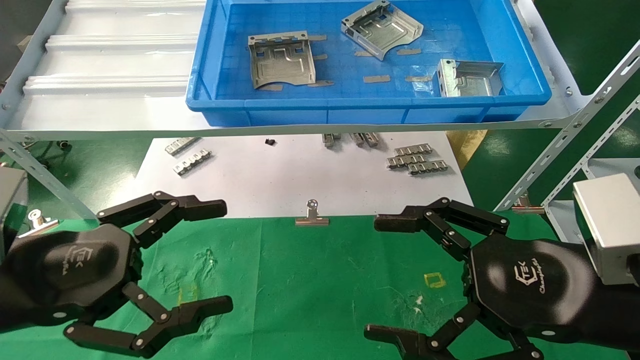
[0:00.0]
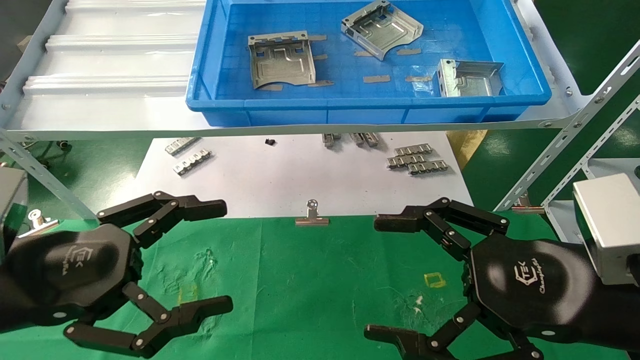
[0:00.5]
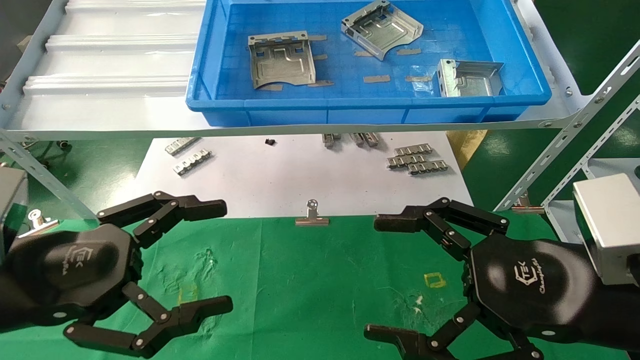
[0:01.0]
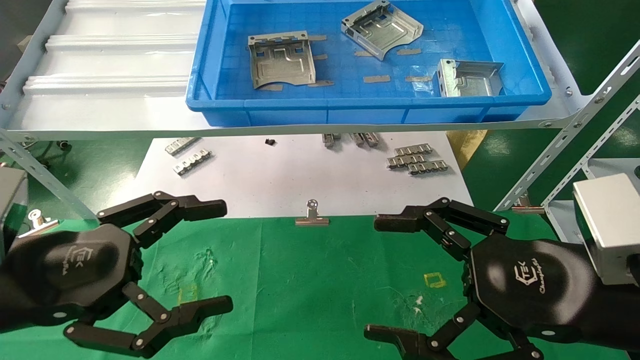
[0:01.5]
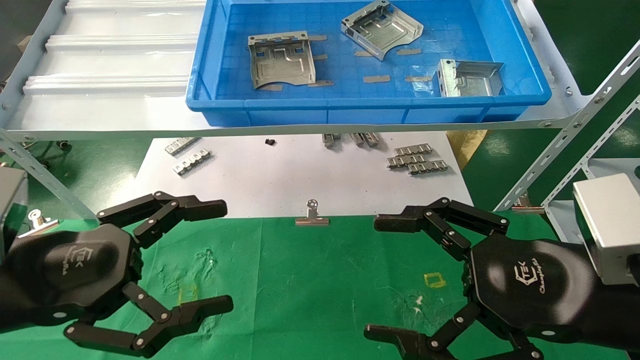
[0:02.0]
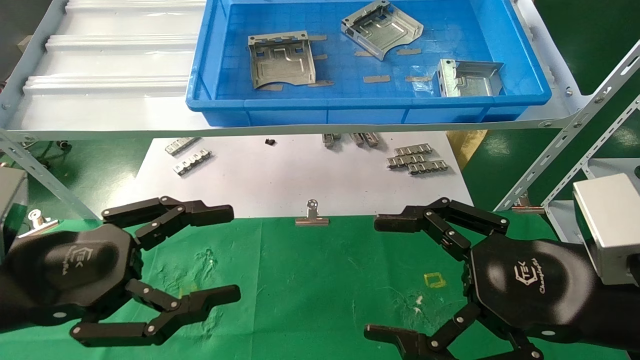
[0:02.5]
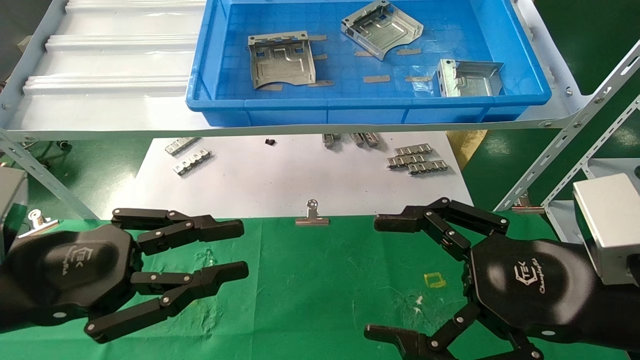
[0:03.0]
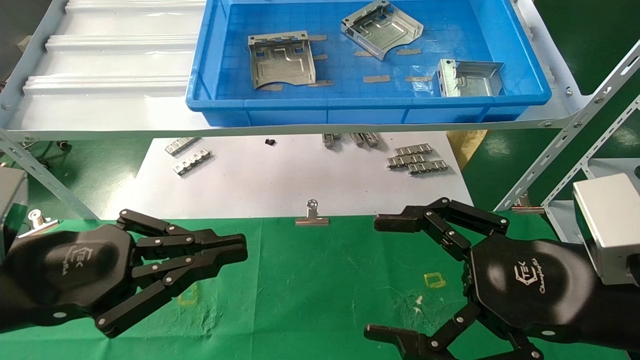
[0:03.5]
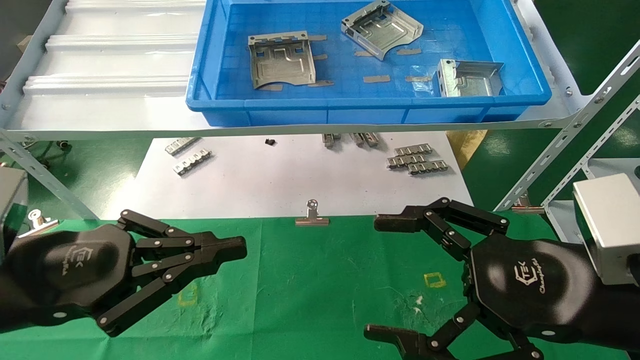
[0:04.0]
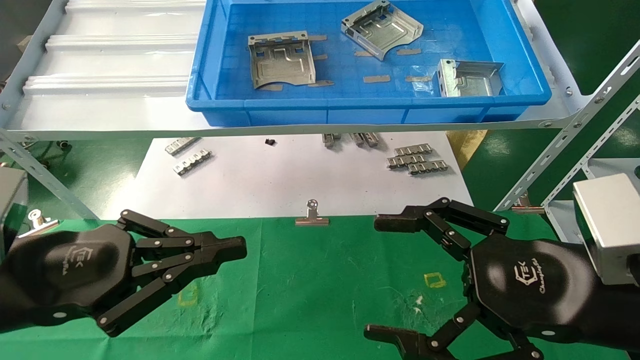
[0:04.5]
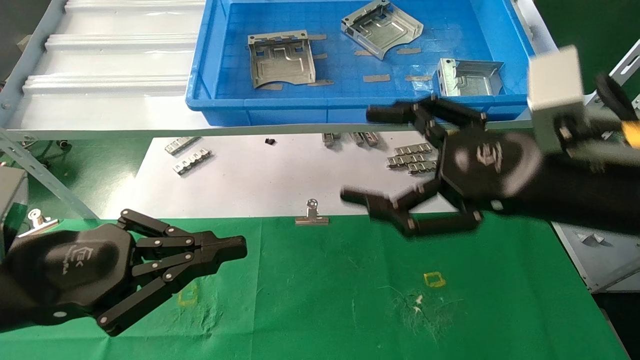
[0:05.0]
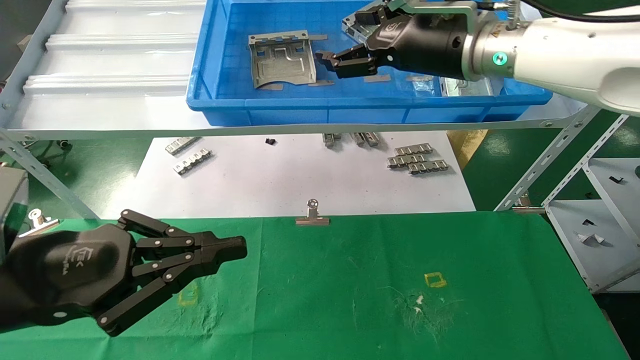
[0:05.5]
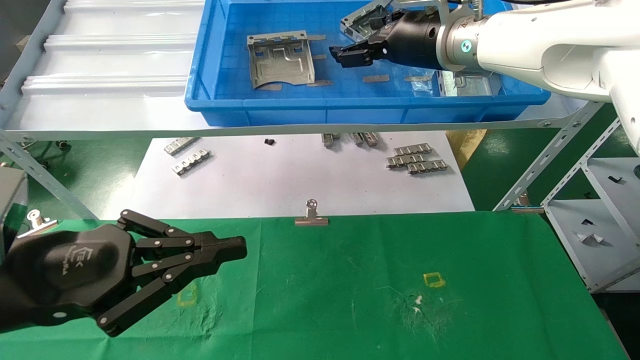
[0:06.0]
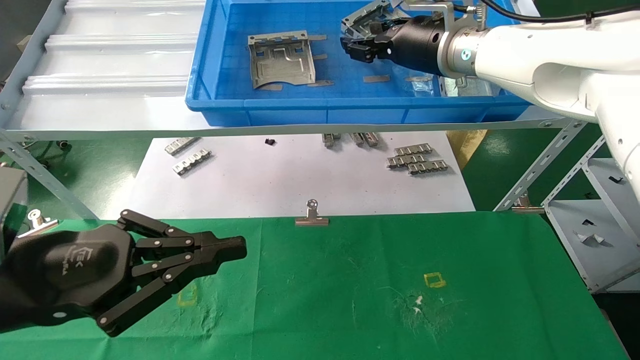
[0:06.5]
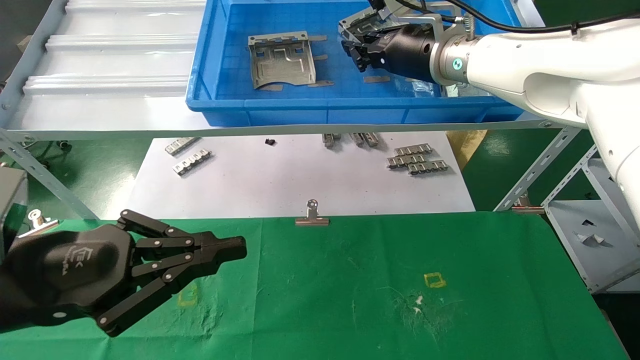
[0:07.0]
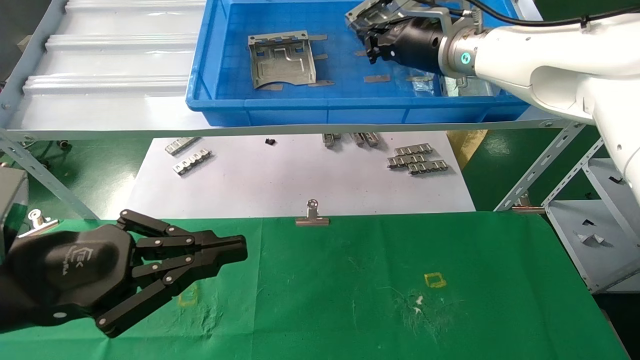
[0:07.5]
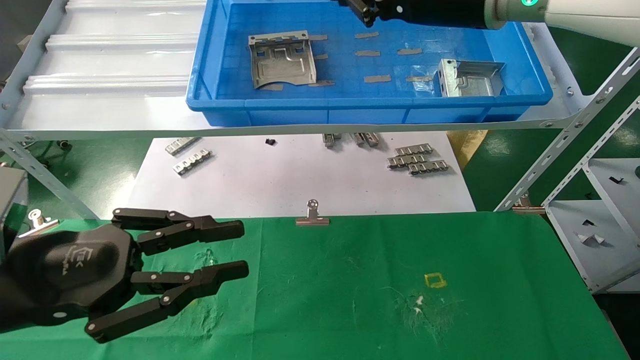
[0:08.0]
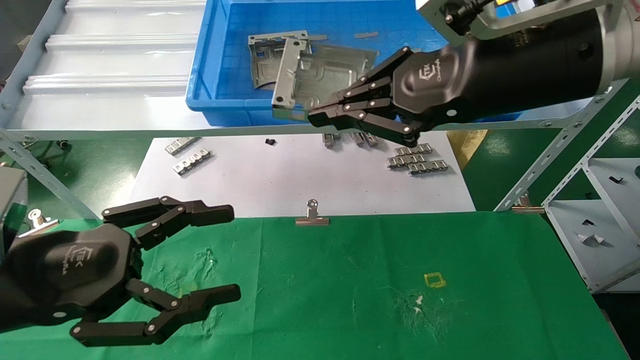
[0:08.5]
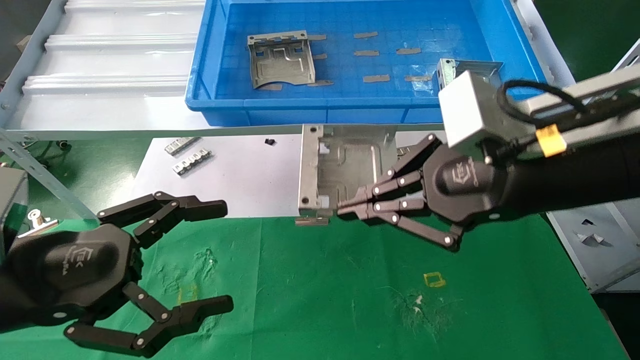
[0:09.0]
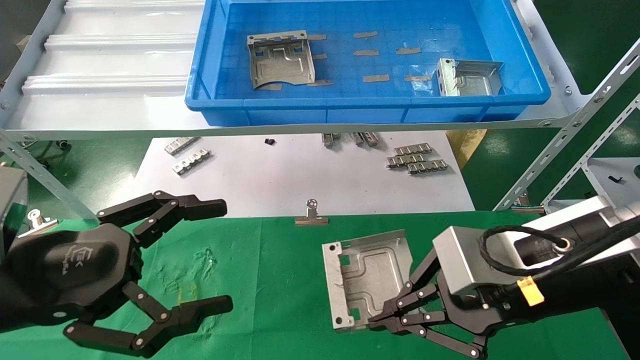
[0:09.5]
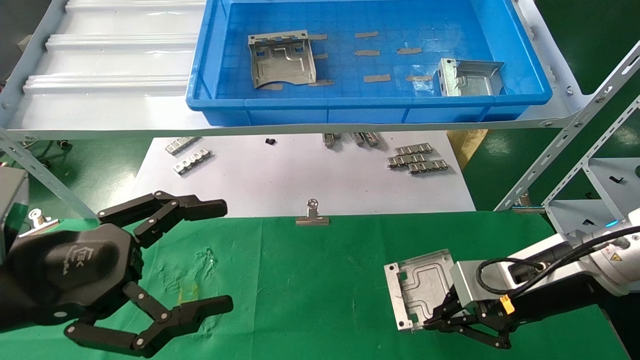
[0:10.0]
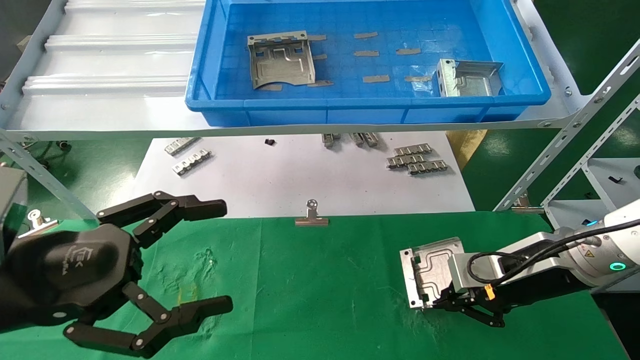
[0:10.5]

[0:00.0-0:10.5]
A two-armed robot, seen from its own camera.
Task of the whole recording: use the mechanical arm to pick up the parts and place them on the table.
Step, 0:03.5 to 0:09.0: Pick up the hard drive bracket from the feeding area.
0:00.0 to 0:02.0: Both grippers stay about where they are.
0:02.0 to 0:04.0: The left gripper closes its fingers.
0:04.0 to 0:06.5: The right gripper shifts approximately 30 cm forward and upward.
0:06.5 to 0:08.5: The right gripper shifts roughly 15 cm backward, and closes its fingers. Meanwhile the left gripper opens.
0:08.5 to 0:10.5: The right gripper travels downward and to the right by some 25 cm, while the left gripper opens its fingers.

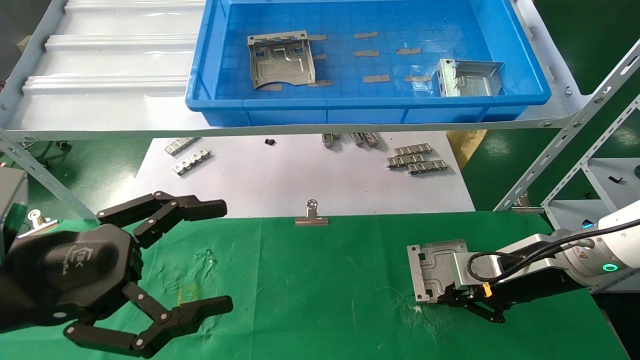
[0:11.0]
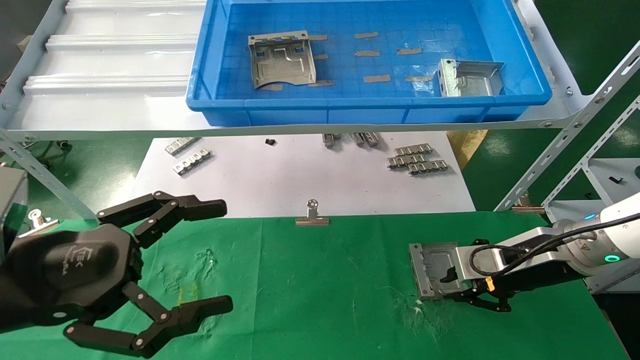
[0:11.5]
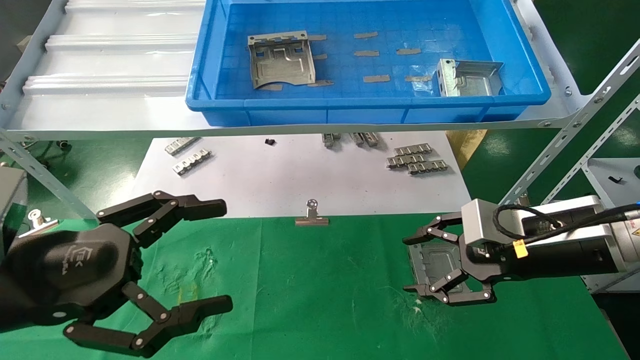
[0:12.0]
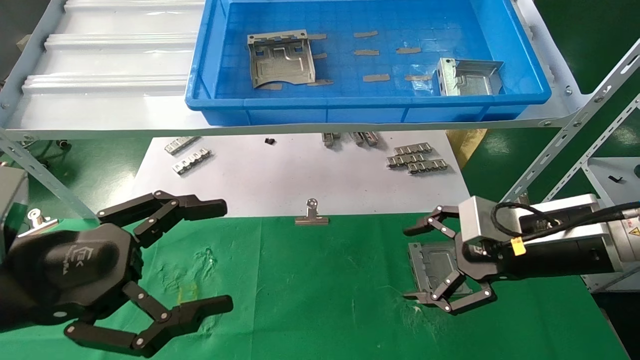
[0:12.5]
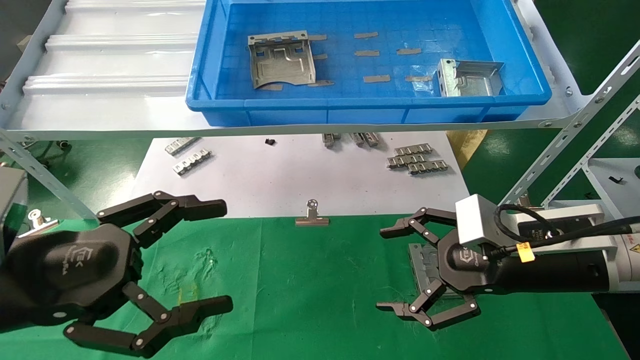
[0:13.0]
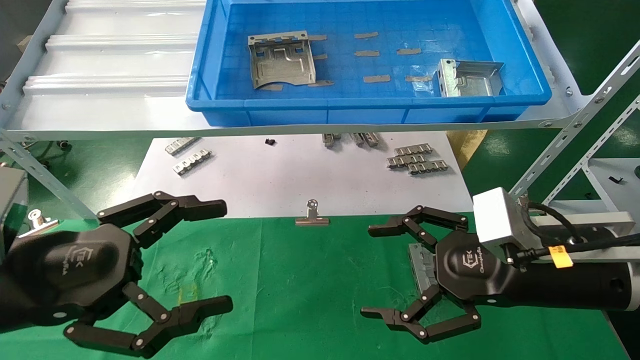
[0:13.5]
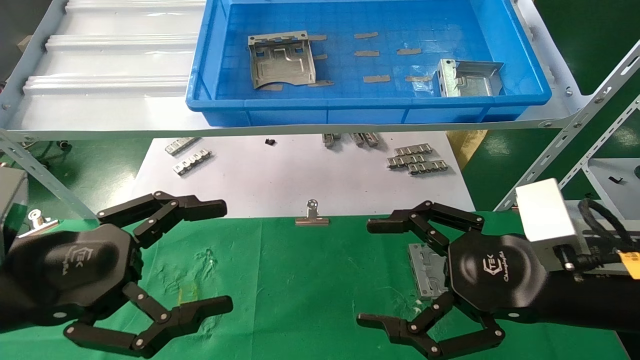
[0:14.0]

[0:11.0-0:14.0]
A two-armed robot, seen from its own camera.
Task of the whole recording: use the mechanical arm to pick up the parts and place them on the table.
0:11.0 to 0:12.5: The right gripper moves backward, roughly 5 cm, and opens.
0:12.5 to 0:14.0: The right gripper heads backward, covering some 10 cm.
